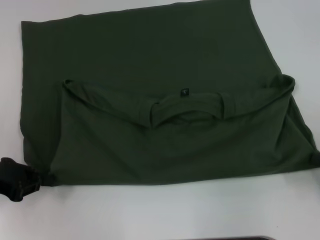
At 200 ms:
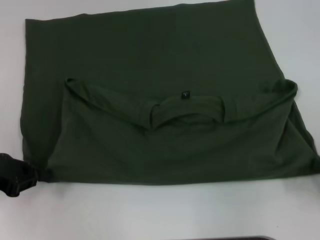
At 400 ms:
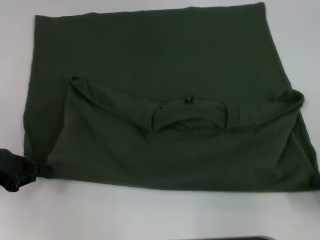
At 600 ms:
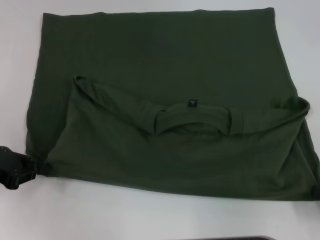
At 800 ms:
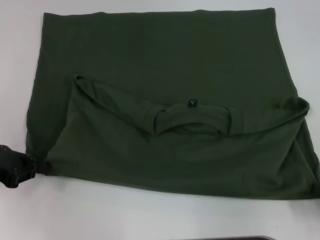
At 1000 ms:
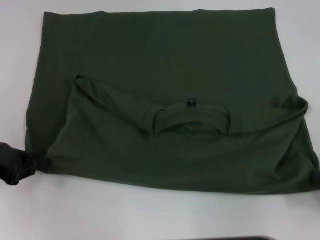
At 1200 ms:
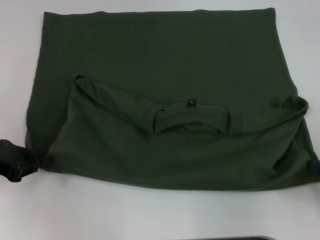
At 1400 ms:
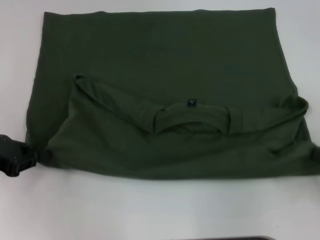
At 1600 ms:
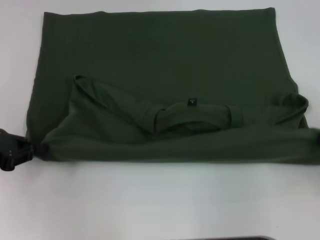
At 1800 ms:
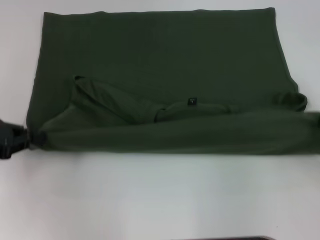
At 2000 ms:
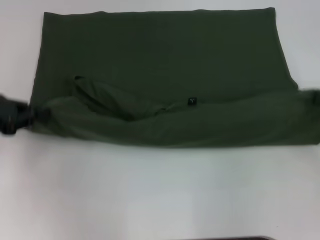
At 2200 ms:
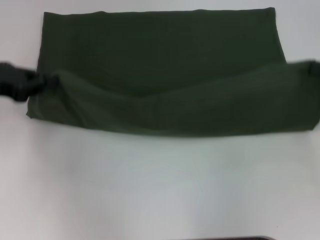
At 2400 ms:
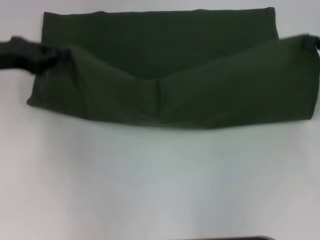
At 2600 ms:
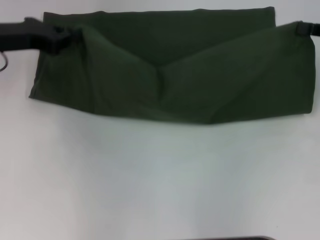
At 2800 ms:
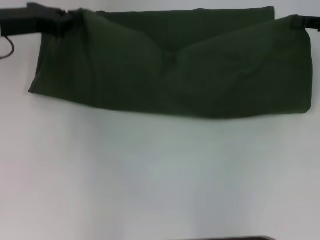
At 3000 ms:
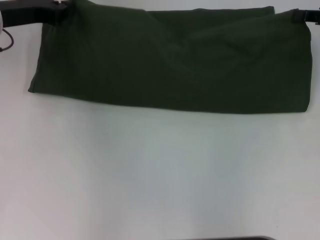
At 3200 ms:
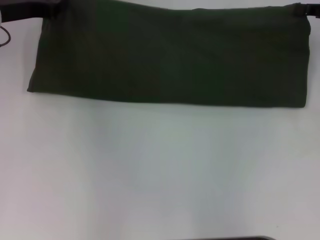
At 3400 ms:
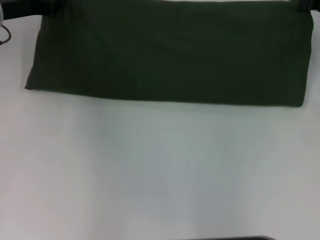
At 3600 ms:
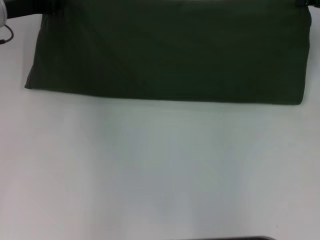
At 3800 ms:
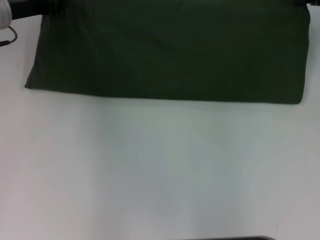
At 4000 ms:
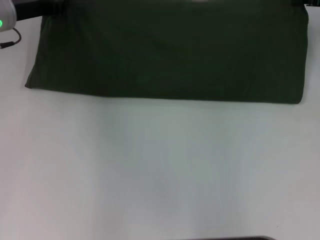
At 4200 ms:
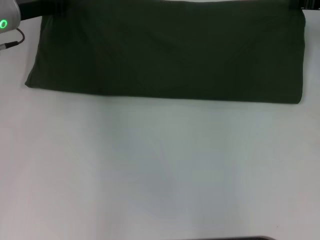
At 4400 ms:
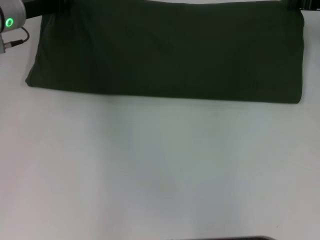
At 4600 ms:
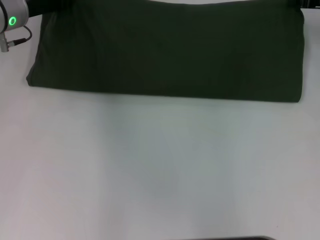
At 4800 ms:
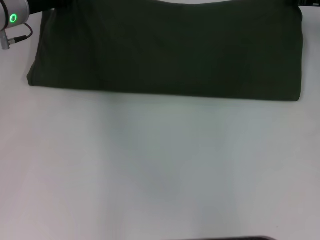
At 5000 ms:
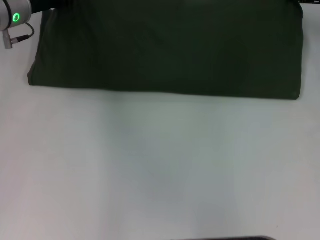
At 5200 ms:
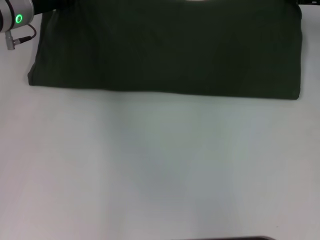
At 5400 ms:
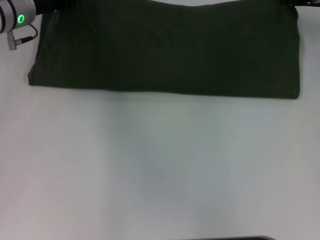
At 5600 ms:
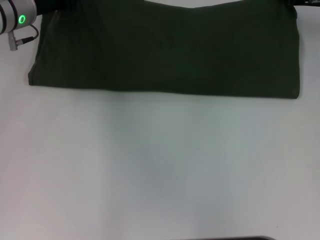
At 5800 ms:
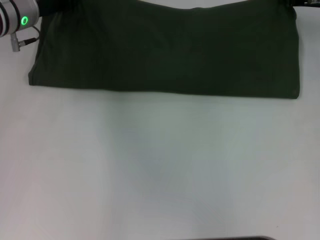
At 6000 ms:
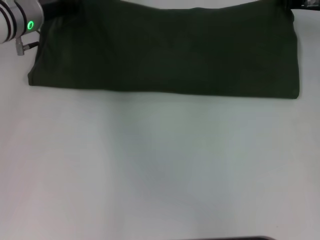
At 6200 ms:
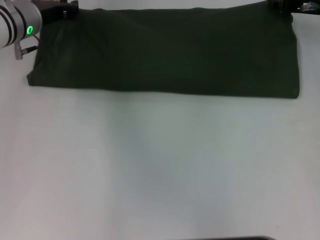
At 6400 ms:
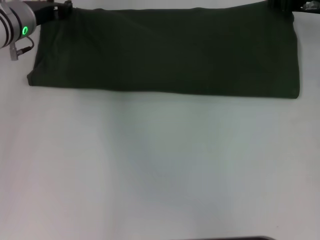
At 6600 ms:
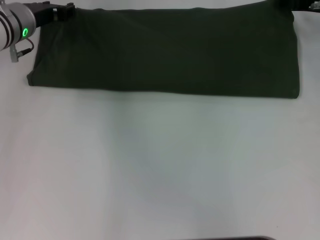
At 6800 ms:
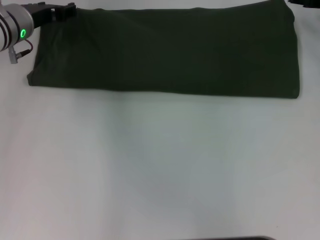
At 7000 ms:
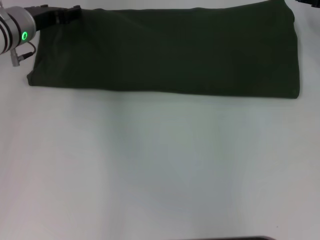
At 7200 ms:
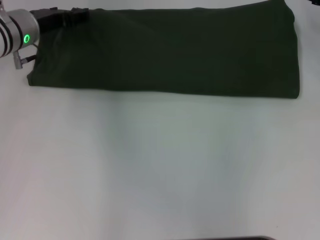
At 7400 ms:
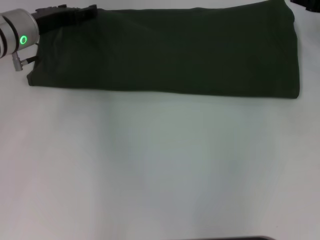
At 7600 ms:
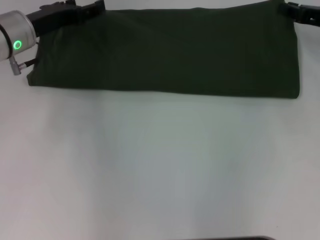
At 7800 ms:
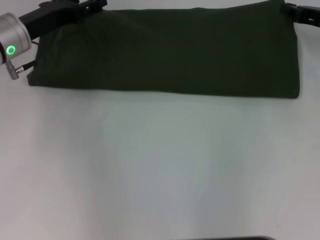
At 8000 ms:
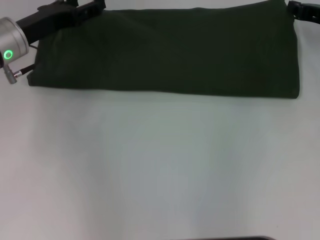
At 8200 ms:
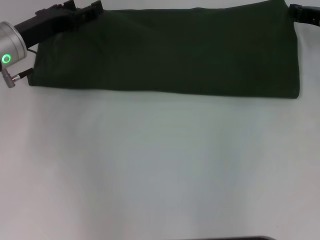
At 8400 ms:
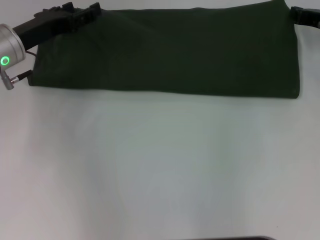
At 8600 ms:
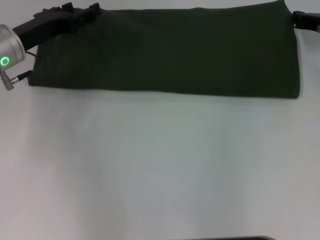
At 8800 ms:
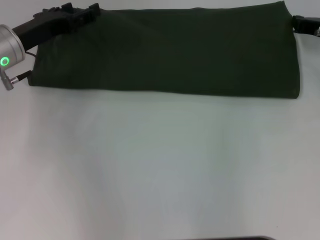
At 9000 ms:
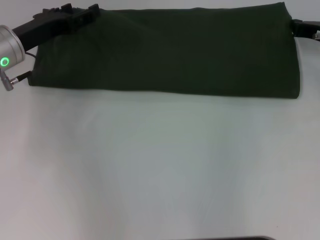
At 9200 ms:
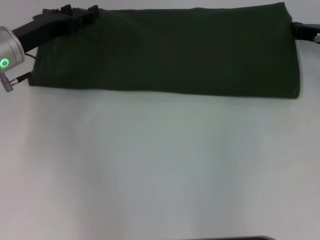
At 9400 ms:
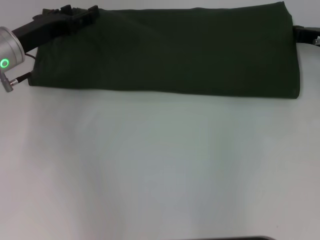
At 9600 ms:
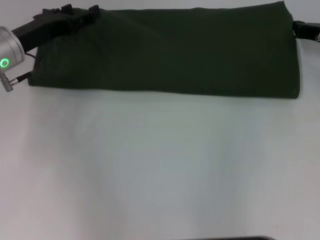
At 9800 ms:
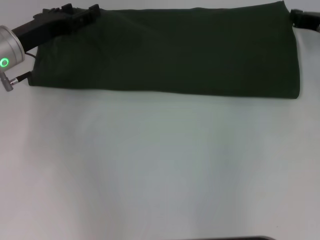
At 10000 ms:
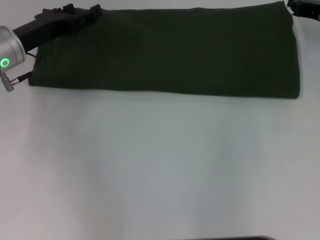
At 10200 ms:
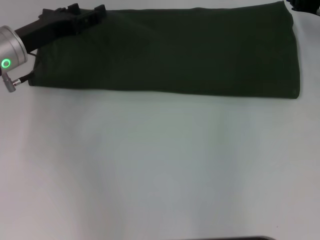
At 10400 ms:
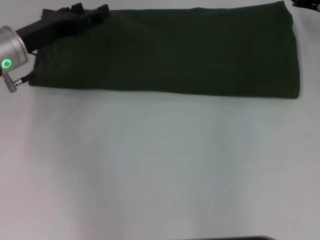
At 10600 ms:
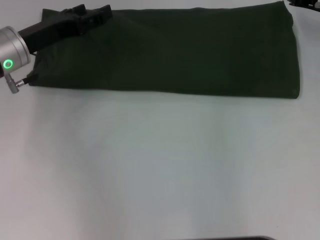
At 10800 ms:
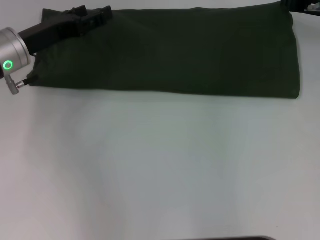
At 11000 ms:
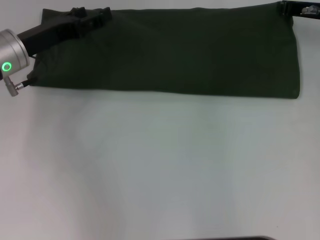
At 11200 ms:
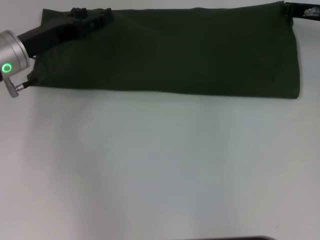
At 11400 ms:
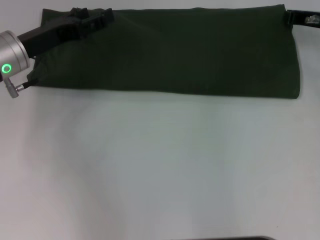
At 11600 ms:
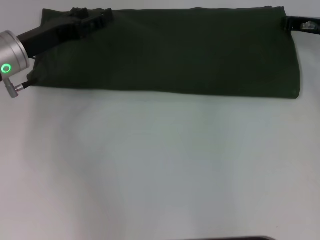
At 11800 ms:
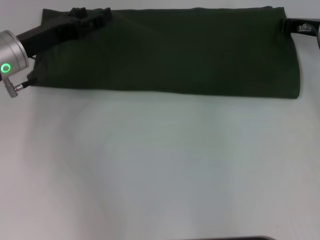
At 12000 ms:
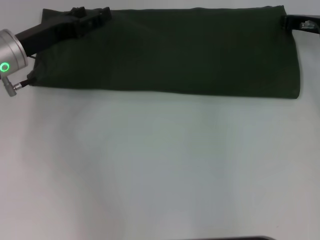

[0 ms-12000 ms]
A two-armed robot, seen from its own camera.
Step, 1000 ms to 7000 ms: Fold the clothes with your left hand.
Step, 1000 ms to 7000 ms: Fold the clothes with your right hand.
0 ms to 1600 ms: The grippers stay close to where they were, moving slightly.
1600 ms to 3000 ms: The left gripper shifts about 15 cm forward and to the right. Meanwhile the right gripper is displaced forward and upward by some 20 cm.
3000 ms to 4400 ms: The right gripper heads forward, covering about 5 cm.
4400 ms to 6000 ms: The grippers make only small movements.
6000 ms to 7600 ms: The left gripper opens, while the right gripper goes approximately 5 cm backward, and opens its fingers.
7600 ms to 9000 ms: The right gripper closes.
9000 ms to 12000 ms: The grippers make only small movements.

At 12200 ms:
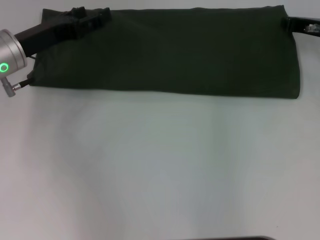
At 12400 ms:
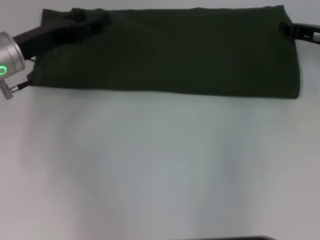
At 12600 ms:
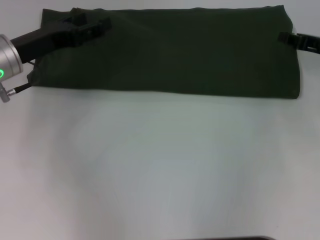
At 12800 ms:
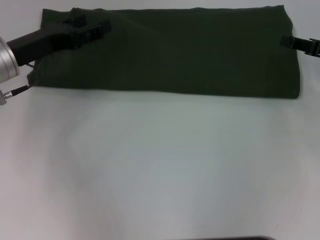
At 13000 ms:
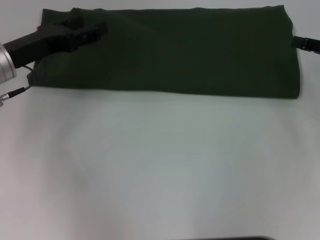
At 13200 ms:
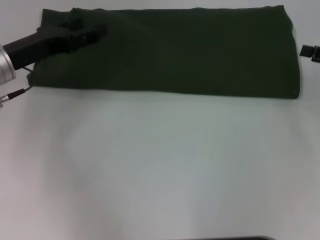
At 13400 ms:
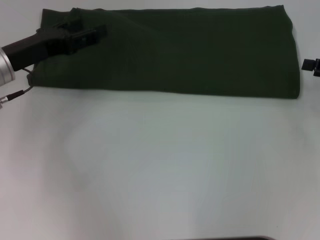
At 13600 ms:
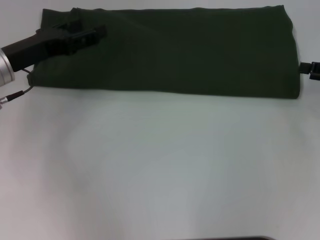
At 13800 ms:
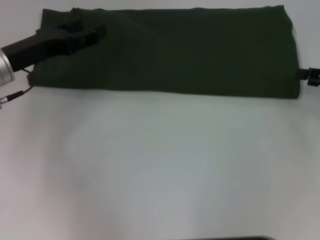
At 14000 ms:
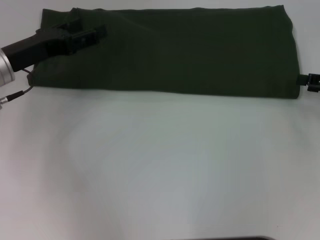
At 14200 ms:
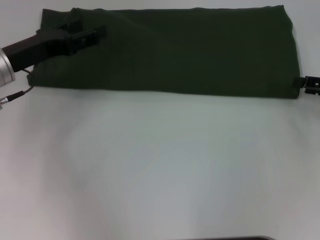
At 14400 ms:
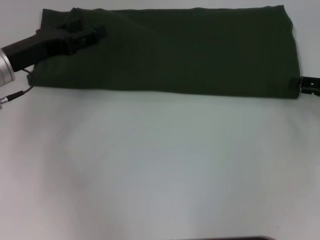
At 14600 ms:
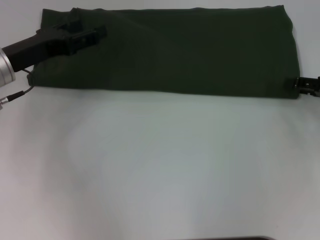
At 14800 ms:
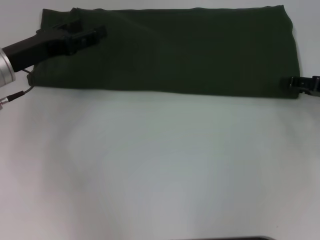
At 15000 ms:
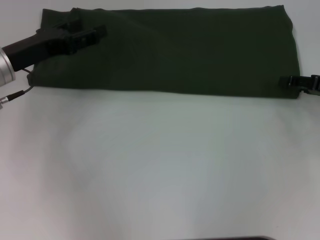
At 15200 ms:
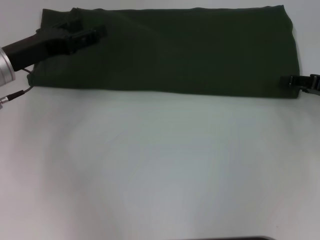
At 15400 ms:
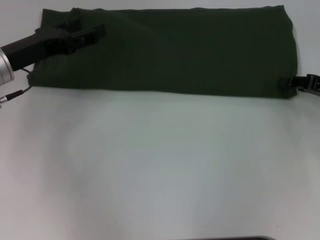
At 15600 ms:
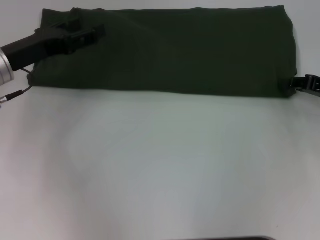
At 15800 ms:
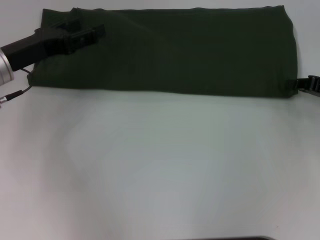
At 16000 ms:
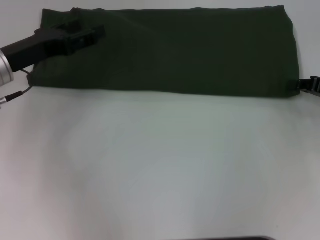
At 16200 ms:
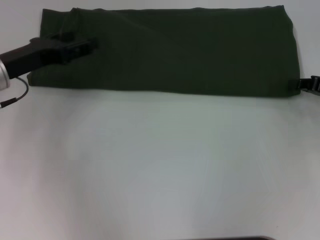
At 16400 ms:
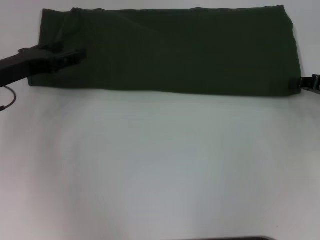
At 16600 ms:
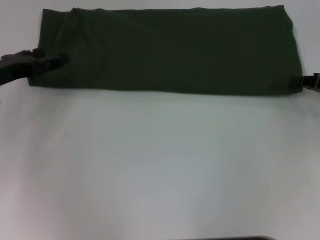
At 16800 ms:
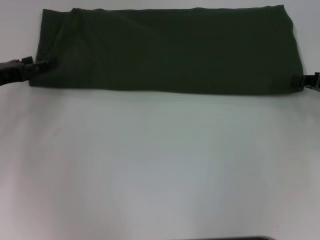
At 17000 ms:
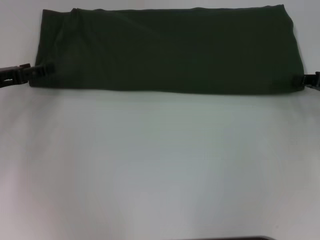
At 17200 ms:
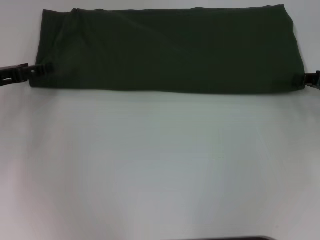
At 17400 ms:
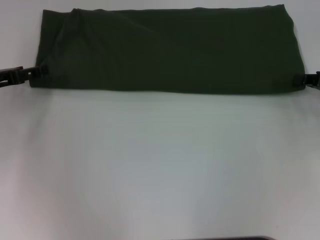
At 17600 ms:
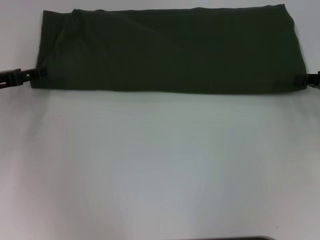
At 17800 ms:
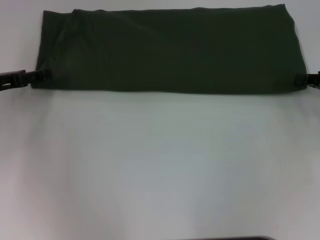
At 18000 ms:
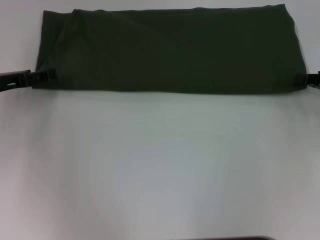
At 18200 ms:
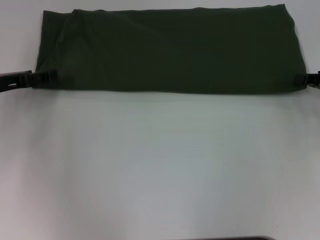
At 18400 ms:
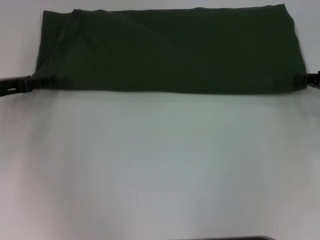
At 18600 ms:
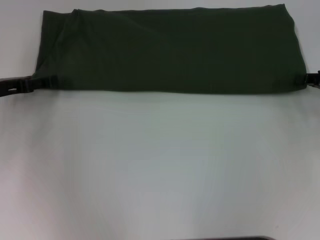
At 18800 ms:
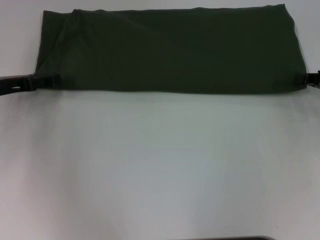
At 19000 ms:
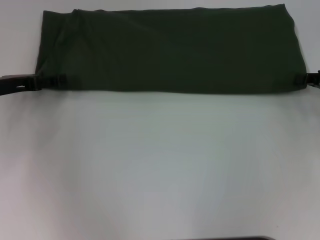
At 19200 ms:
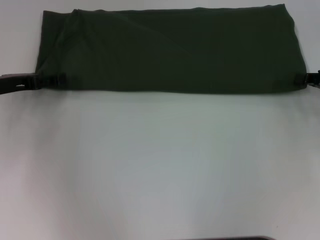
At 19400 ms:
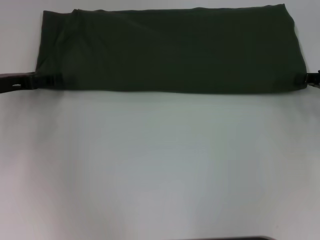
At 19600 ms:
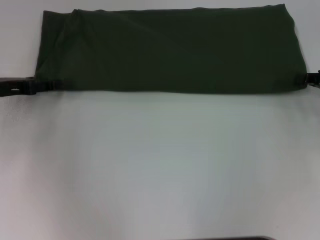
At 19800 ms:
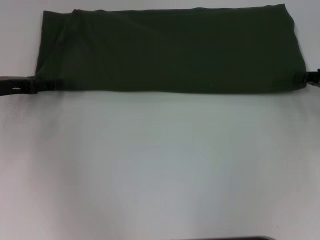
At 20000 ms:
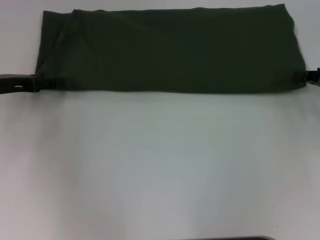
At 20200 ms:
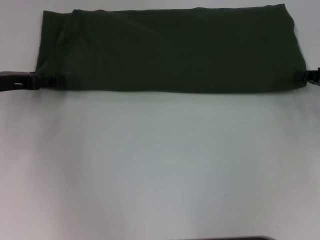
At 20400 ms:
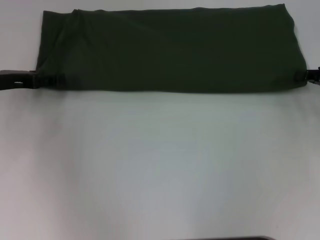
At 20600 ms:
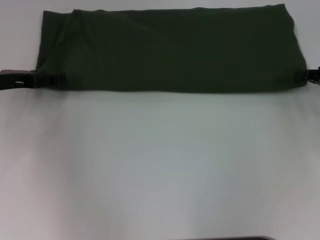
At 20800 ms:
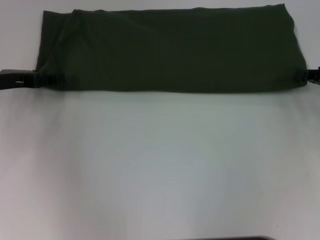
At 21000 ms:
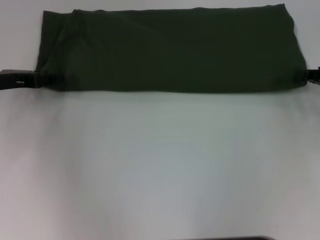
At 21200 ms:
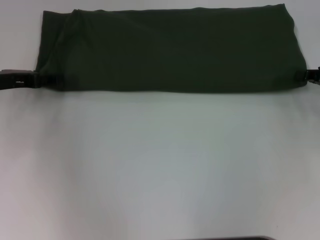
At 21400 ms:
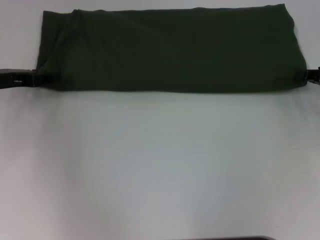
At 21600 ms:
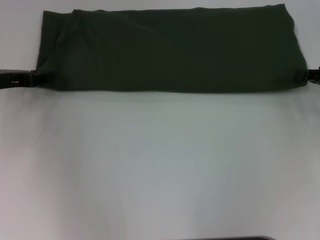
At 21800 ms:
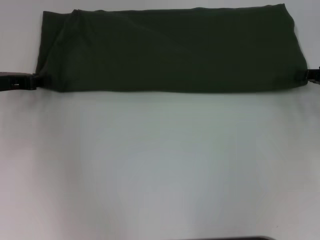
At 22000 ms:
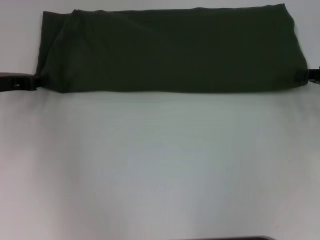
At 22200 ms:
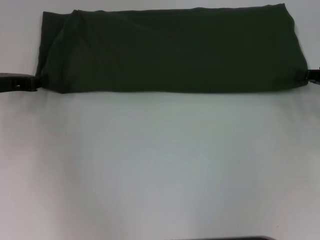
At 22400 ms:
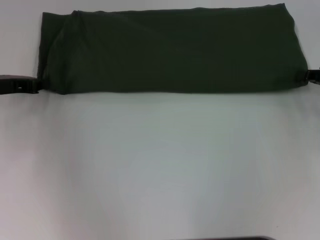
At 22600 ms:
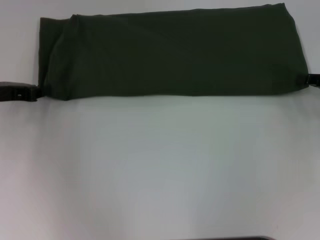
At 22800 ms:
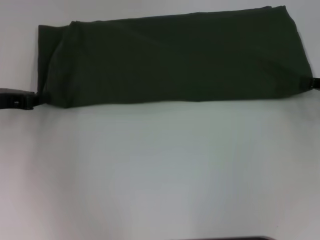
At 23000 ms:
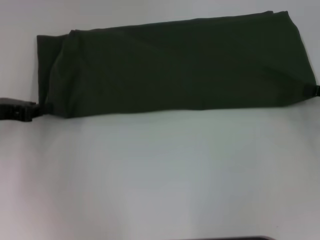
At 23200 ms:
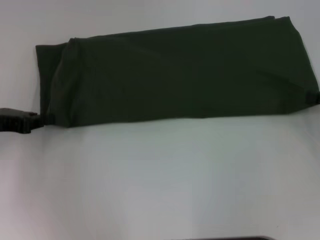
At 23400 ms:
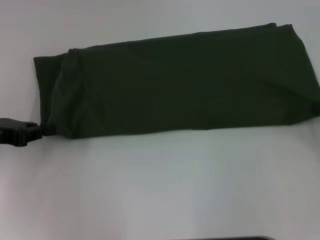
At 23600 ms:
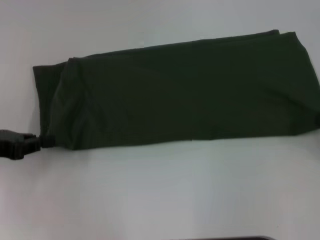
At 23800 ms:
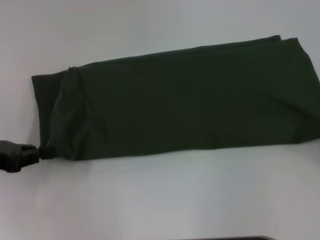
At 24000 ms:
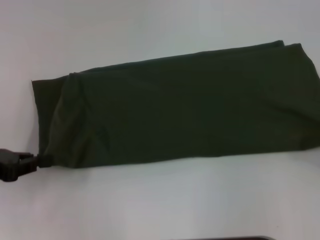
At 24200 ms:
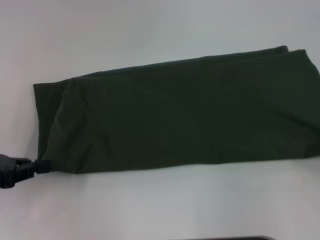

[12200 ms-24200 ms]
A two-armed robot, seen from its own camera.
12200 ms to 13800 ms: The right gripper shifts roughly 15 cm backward and to the right, and opens its fingers.
15200 ms to 16600 ms: The left gripper is displaced to the left by approximately 5 cm.
16600 ms to 19800 ms: There are only small adjustments of the grippers.
19800 ms to 21200 ms: Both grippers stay about where they are.
21200 ms to 22600 ms: The left gripper closes up.
22600 ms to 24200 ms: The grippers both shift backward by roughly 10 cm.
